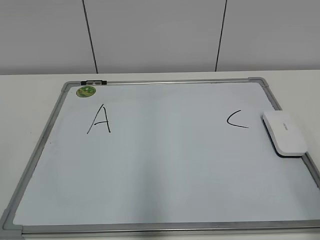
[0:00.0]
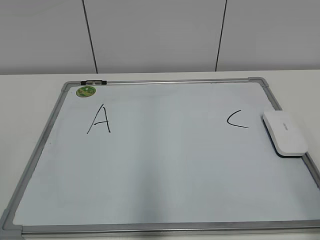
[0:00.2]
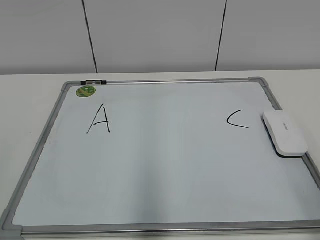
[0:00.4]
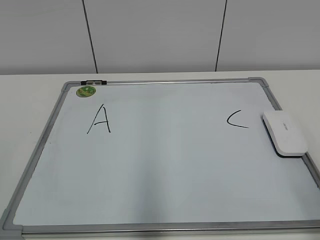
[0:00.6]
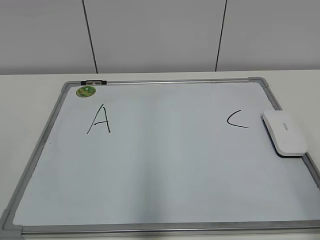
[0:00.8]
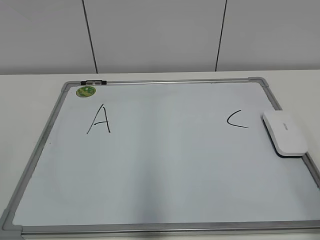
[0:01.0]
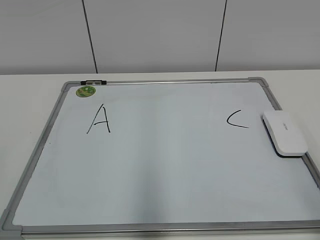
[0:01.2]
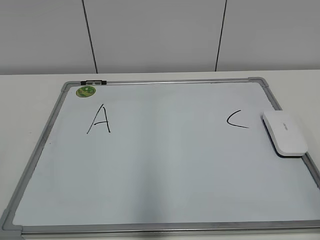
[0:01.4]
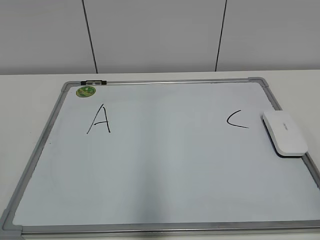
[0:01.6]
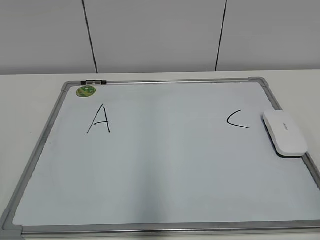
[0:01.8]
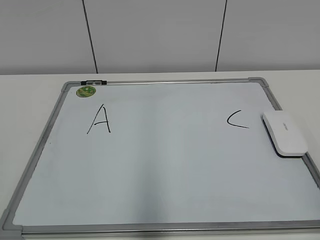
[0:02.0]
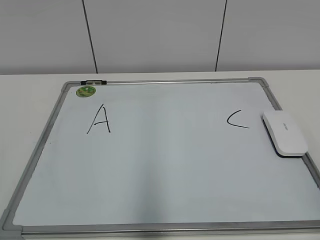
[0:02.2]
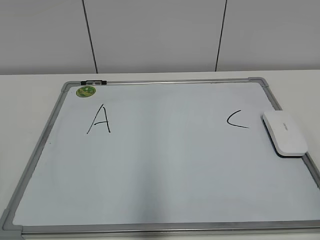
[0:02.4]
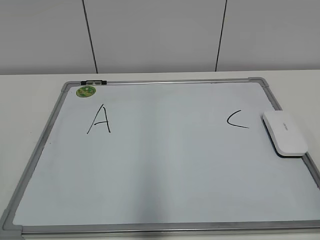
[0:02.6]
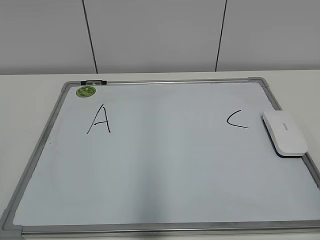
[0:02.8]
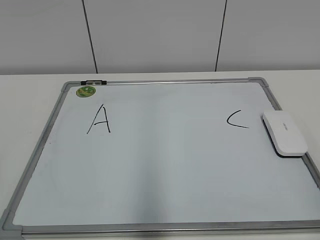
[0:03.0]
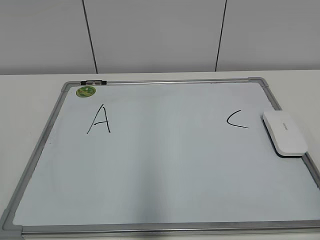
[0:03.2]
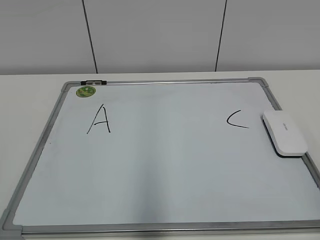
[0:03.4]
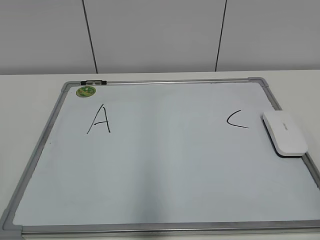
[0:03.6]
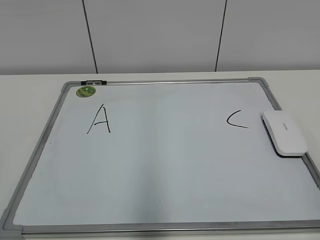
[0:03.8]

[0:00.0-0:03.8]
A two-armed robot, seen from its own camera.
Task of the whole recording: pick up the eraser on the blackboard and erase the letter "B".
0:02.6 to 0:03.8: The two grippers keep their place.
